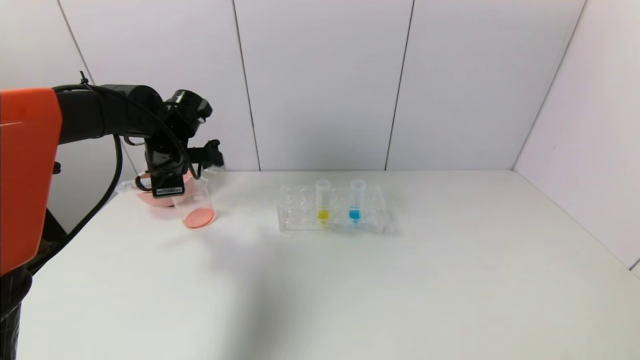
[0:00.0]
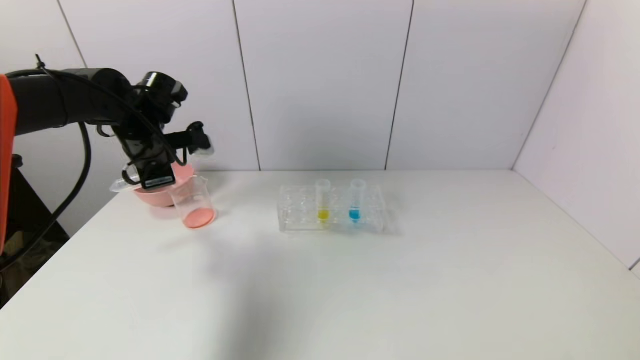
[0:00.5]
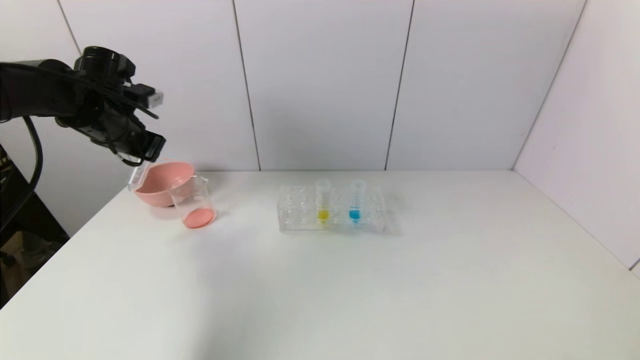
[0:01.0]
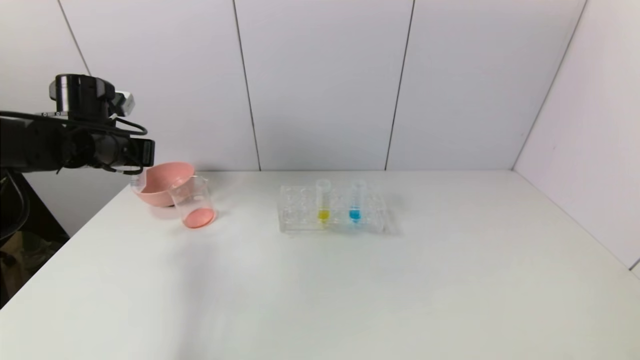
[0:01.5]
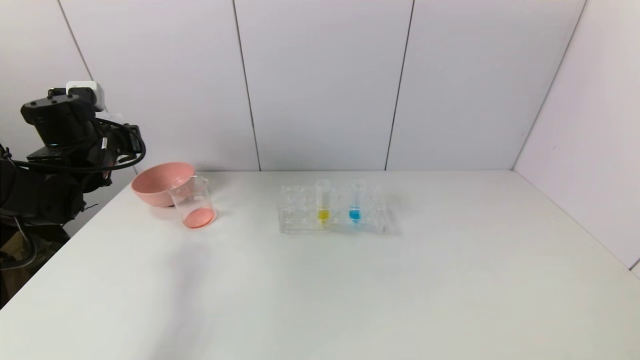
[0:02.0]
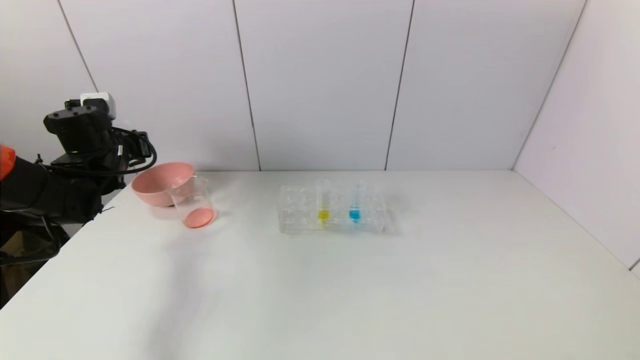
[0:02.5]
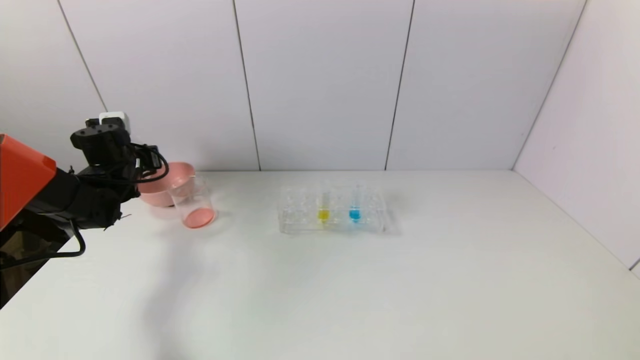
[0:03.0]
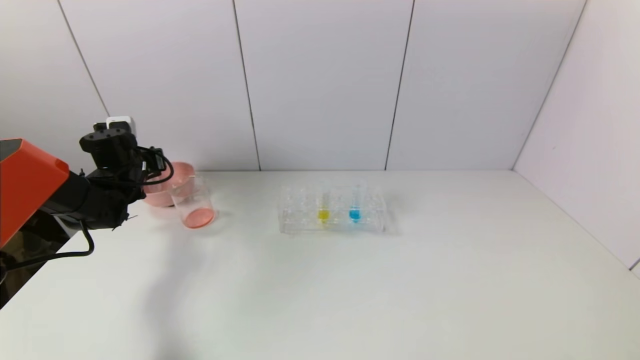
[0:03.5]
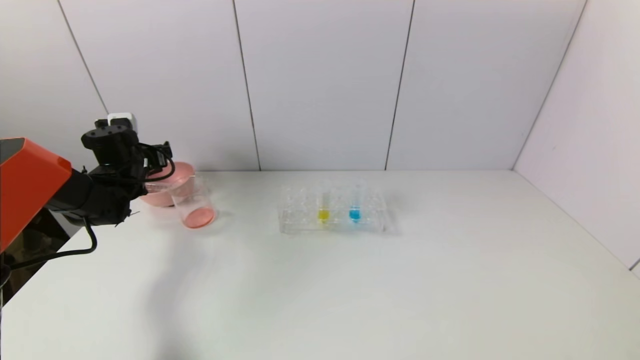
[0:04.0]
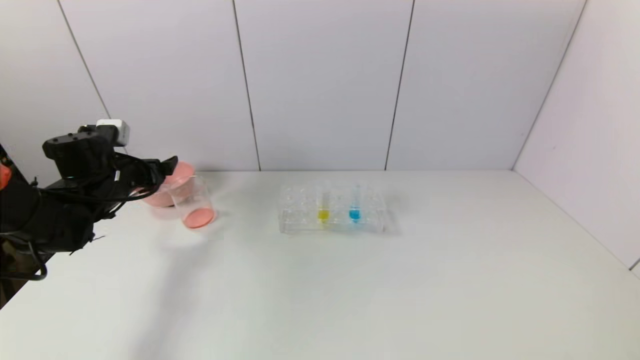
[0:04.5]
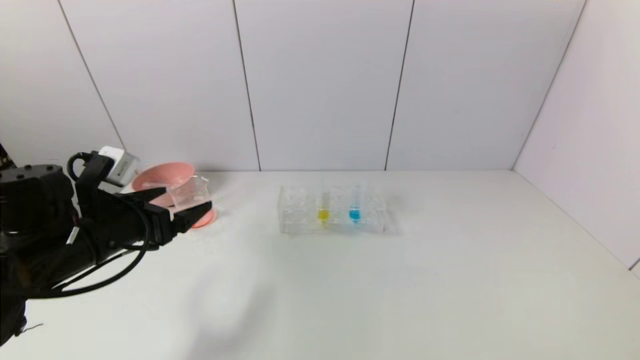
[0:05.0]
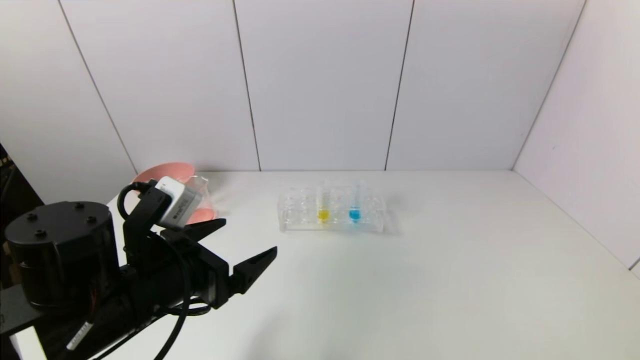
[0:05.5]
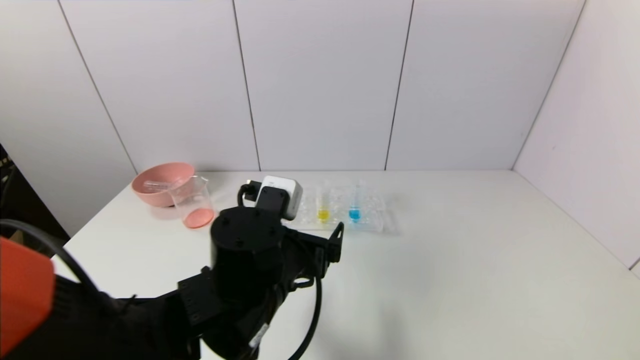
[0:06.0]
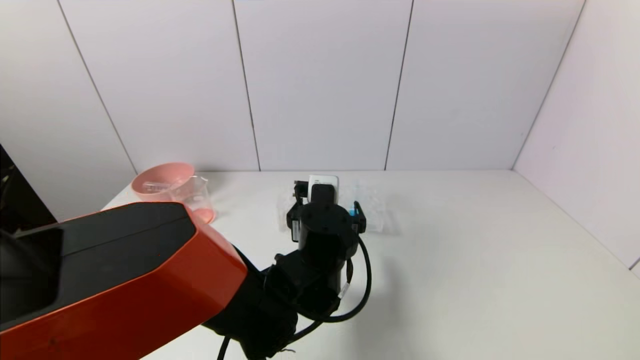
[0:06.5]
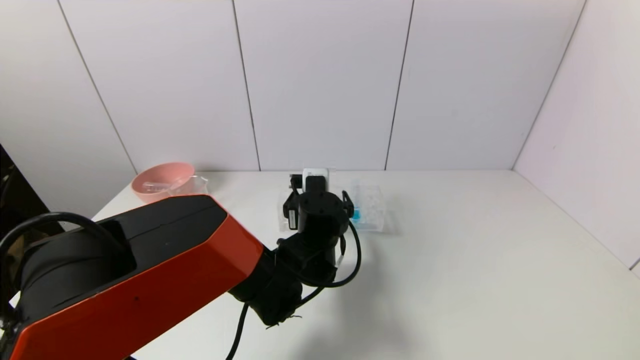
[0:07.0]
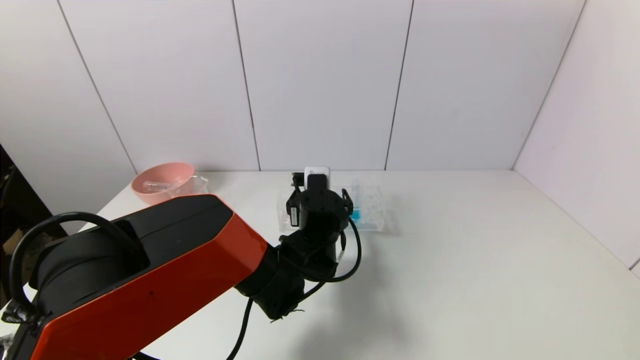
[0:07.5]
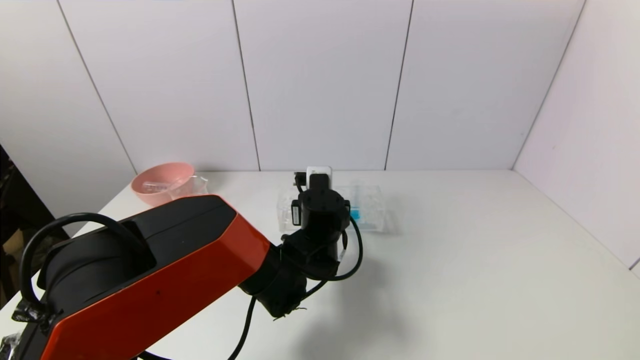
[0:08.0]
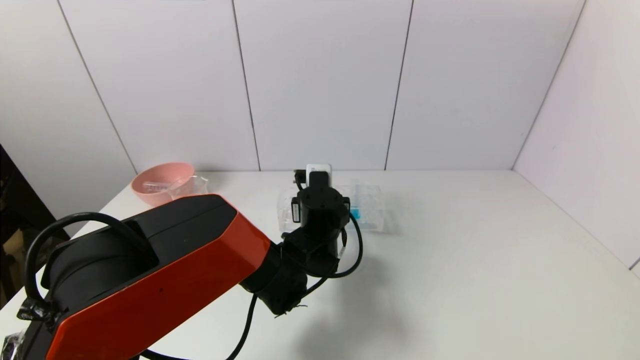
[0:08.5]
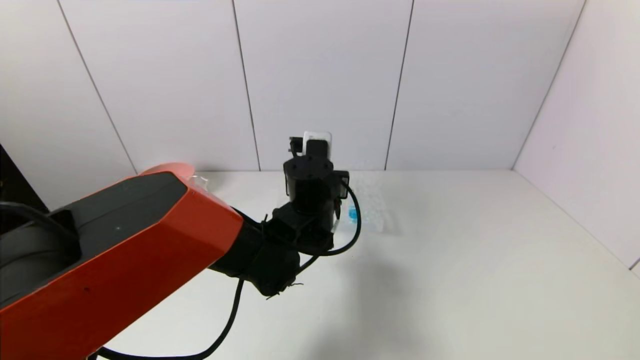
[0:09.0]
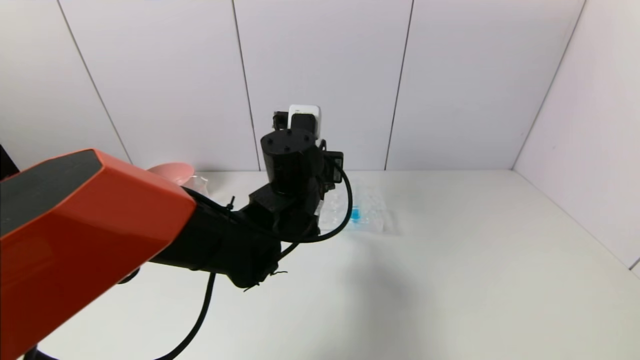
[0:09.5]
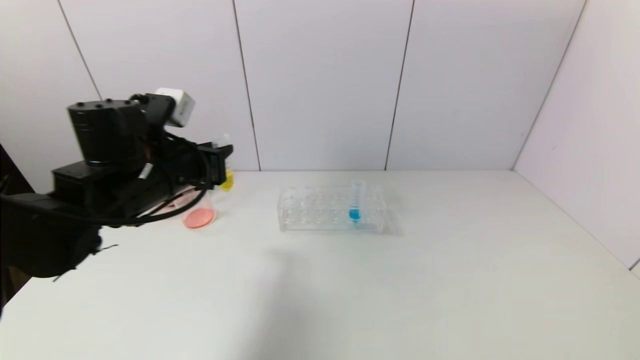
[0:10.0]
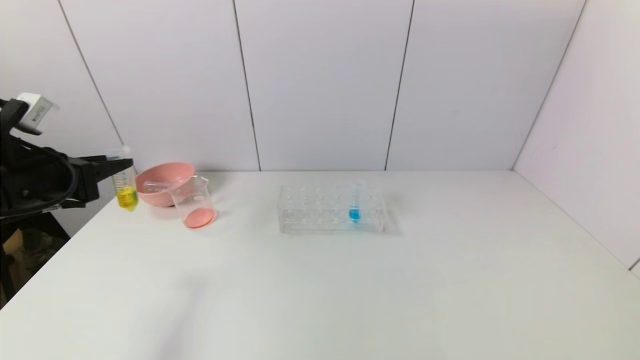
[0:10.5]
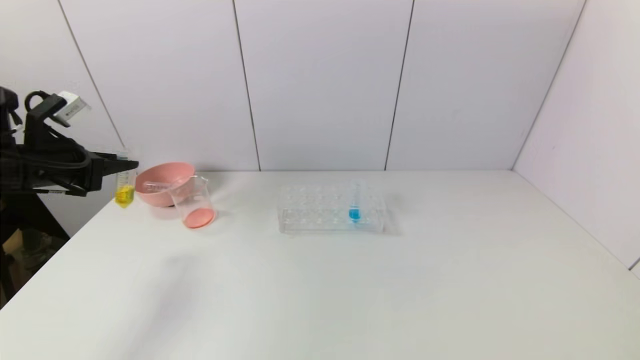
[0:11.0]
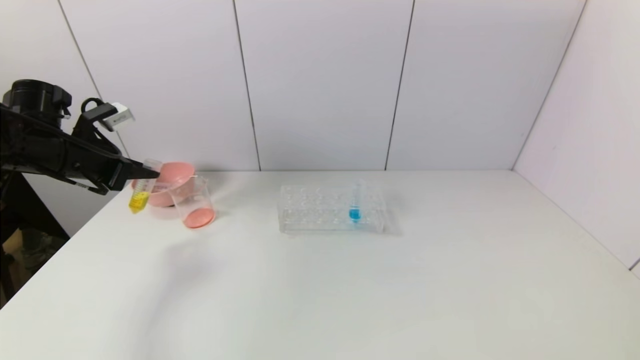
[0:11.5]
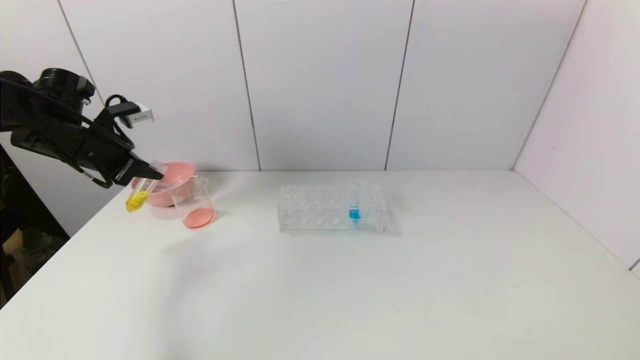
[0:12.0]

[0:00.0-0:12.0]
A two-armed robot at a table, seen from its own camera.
Task of the whole recording: pick up the test tube with yellow pigment and the test tube with red pigment by grippers and pour them into the beaker.
Step, 0:00.5 to 0:03.5: Place the test tube into the pink bowl with the left gripper.
Step, 0:04.0 to 0:08.0: Grasp the yellow reagent with the left gripper.
0:00.0 to 0:02.0: The left gripper travels to the left by roughly 10 cm.
0:02.0 to 0:04.0: The left gripper travels forward and downward by about 10 cm, and opens up.
0:04.0 to 0:06.0: The left gripper is displaced to the right and backward by approximately 40 cm.
0:06.0 to 0:08.0: The left gripper moves forward, to the right and downward, approximately 15 cm, and closes up.
0:08.0 to 0:10.0: The left gripper shifts approximately 25 cm to the left and upward.
0:10.0 to 0:12.0: The left gripper goes approximately 20 cm to the left and forward.

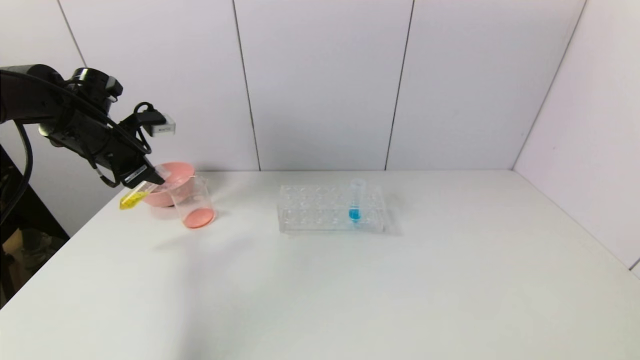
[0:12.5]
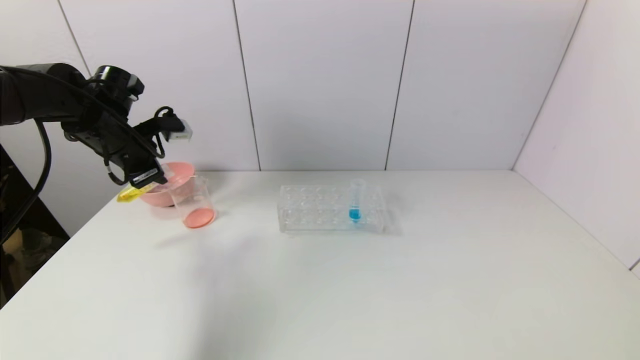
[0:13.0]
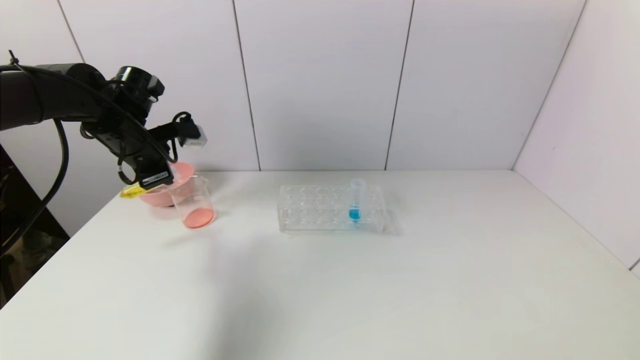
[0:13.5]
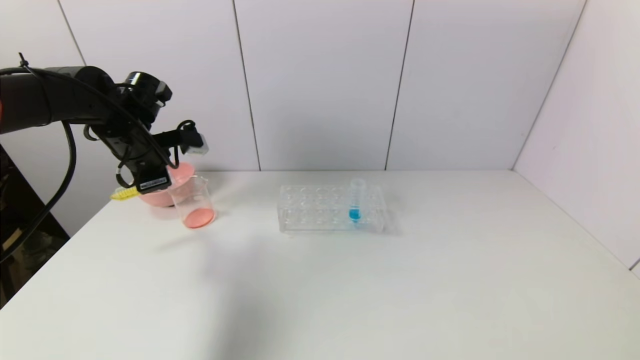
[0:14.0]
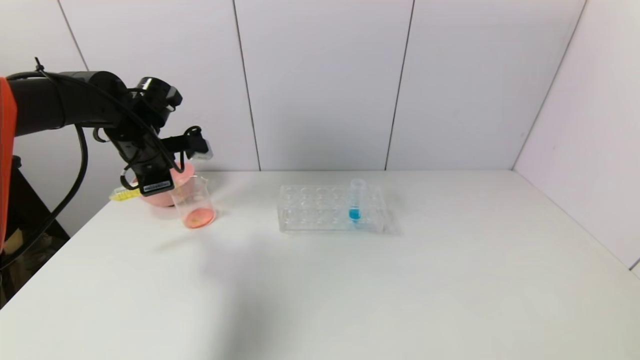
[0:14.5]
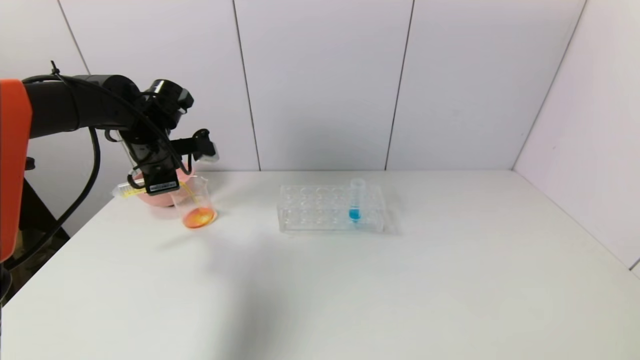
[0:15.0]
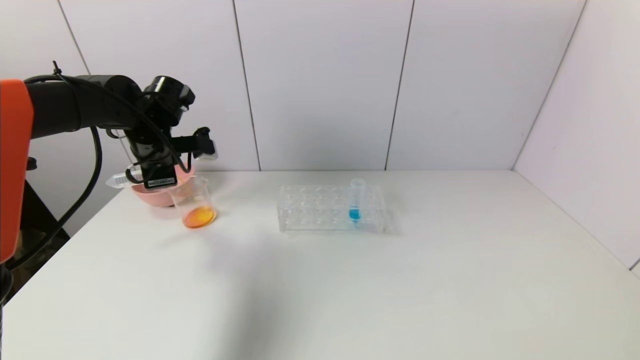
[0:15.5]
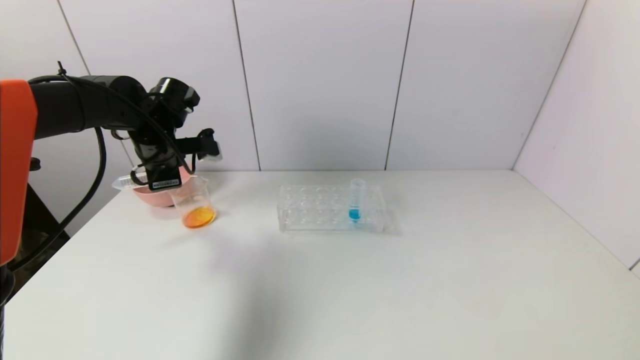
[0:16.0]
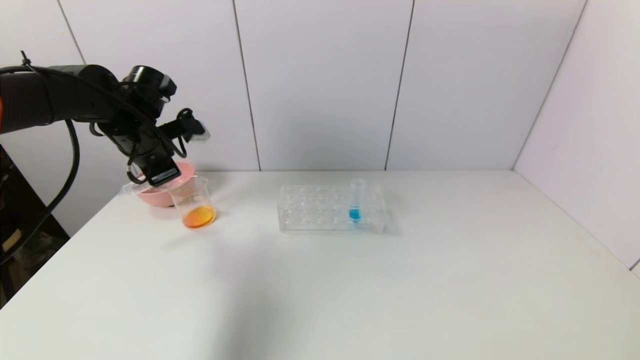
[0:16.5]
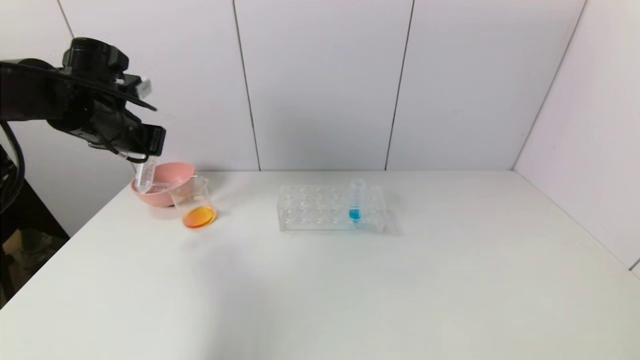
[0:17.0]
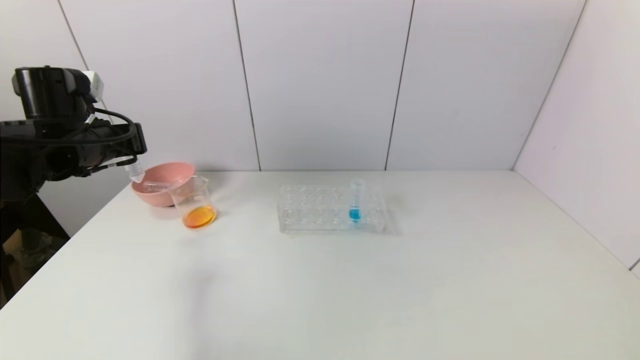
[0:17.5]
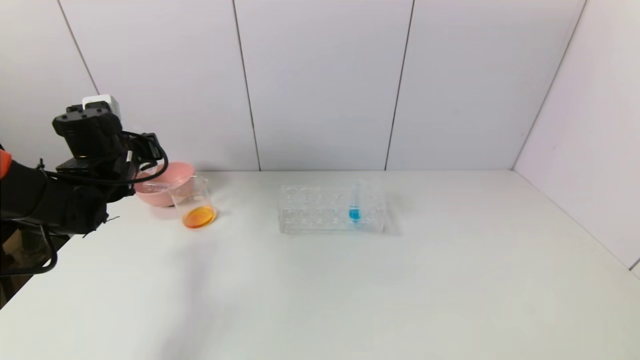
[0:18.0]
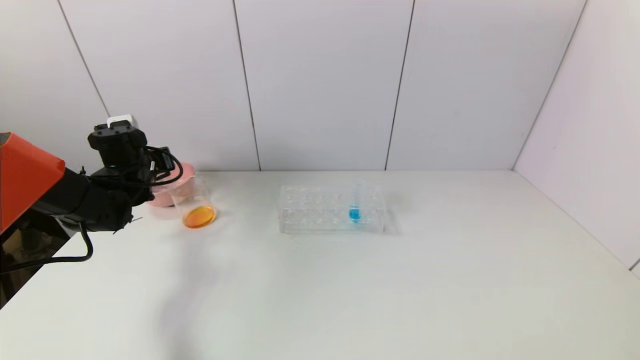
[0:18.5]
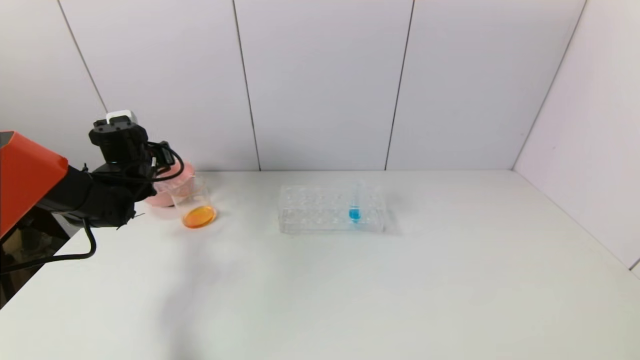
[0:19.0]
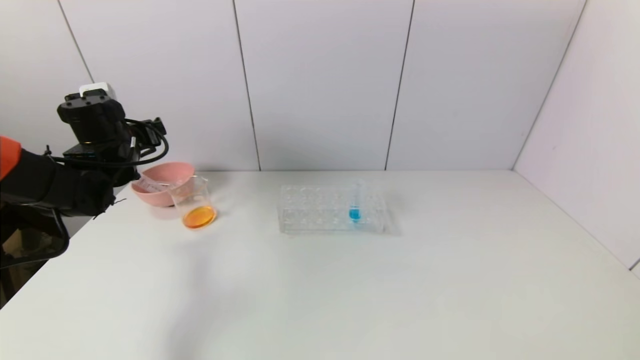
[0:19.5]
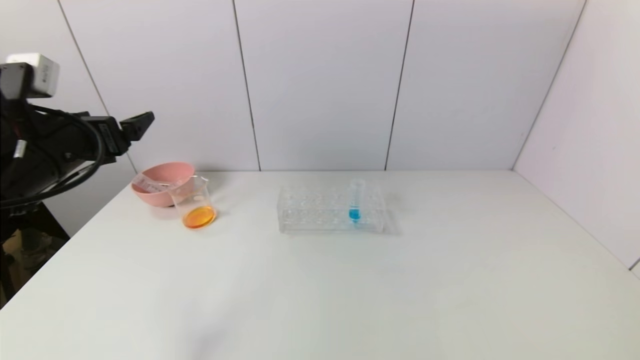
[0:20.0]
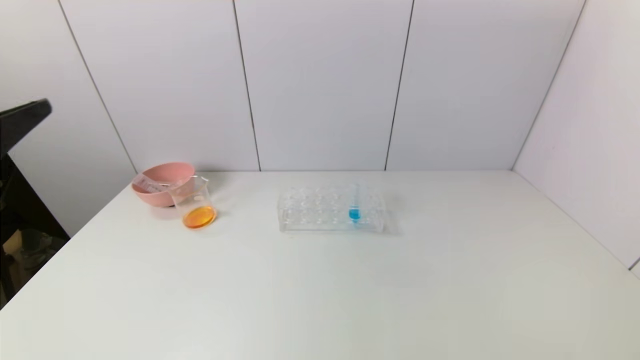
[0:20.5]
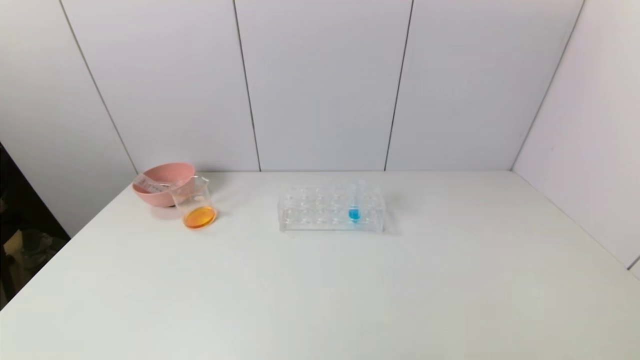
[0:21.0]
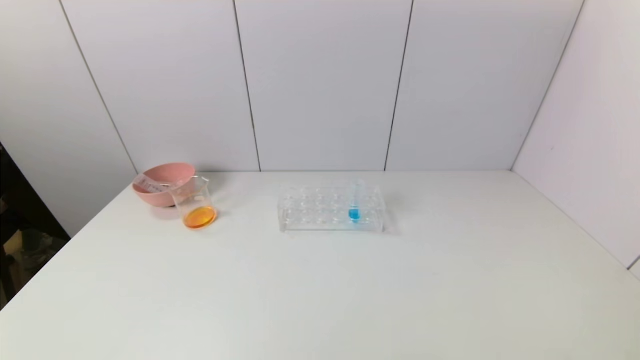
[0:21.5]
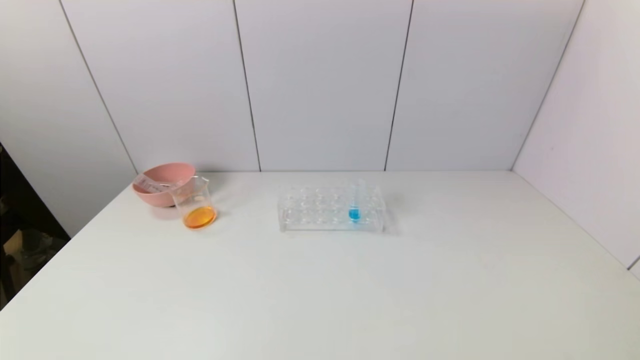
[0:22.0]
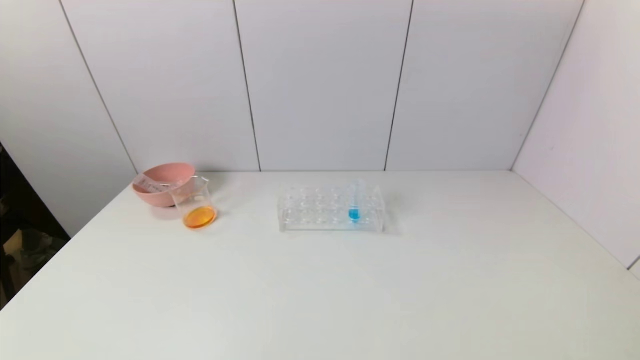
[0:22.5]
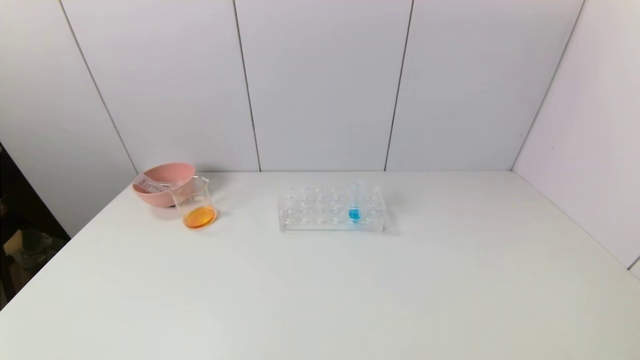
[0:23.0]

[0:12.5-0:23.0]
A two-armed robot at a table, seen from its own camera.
Task of the whole recording: pick up the test tube with yellow pigment and the test tube with red pigment by grippers and pour them into the beaker.
Step, 0:12.5 to 0:15.5: Pour the yellow reagent into the graduated cylinder with the left gripper.
Step, 0:16.0 to 0:19.0: Place the test tube into the pink bowl with the left gripper.
0:12.5 to 0:14.5: The left gripper travels to the right by some 5 cm.
0:14.5 to 0:16.5: The grippers move only a little.
0:16.5 to 0:19.0: The left gripper goes approximately 10 cm downward, and opens its fingers.
0:19.0 to 0:21.0: The left gripper shifts approximately 50 cm backward, and opens.
